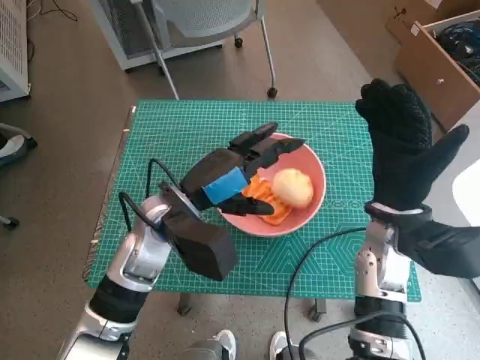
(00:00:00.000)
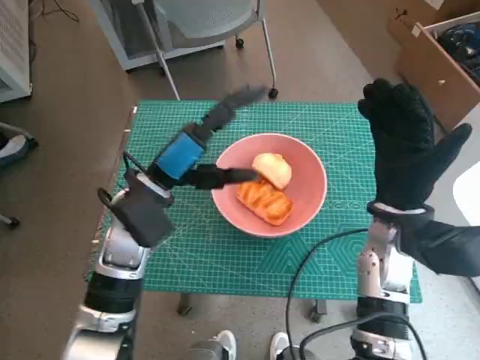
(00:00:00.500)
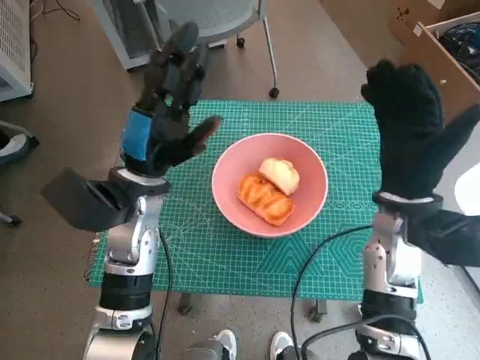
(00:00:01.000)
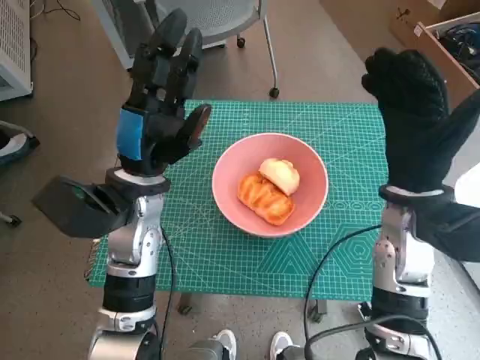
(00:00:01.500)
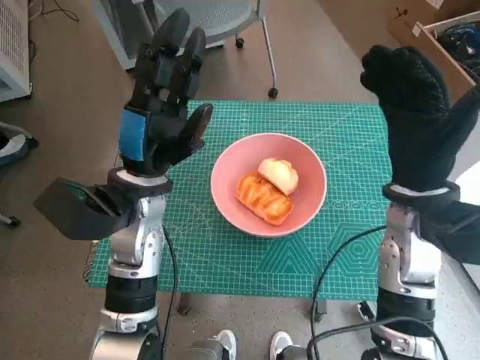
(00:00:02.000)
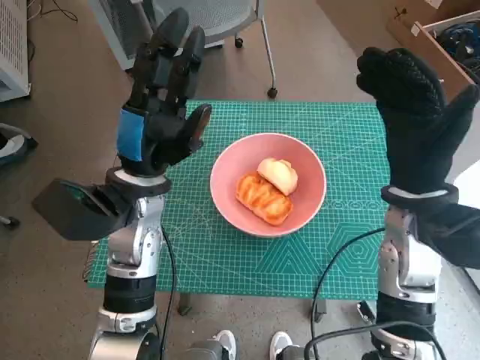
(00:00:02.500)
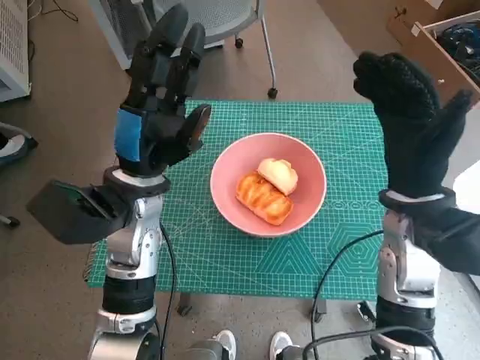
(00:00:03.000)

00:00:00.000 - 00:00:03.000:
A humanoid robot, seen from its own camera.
00:00:01.500 - 00:00:03.000: The hands move only a little.

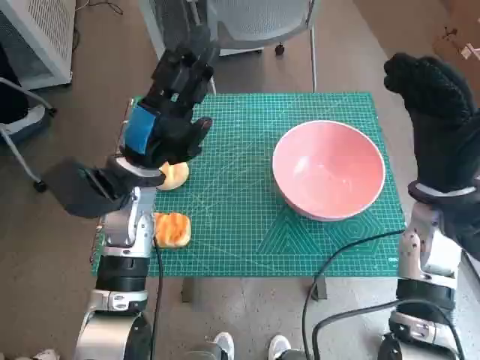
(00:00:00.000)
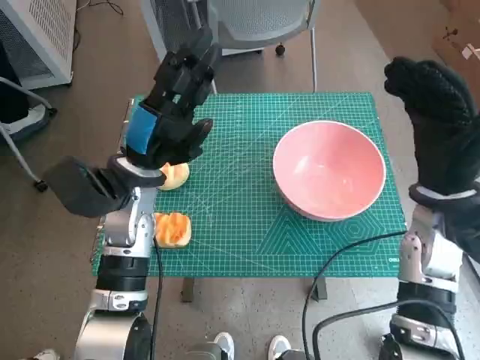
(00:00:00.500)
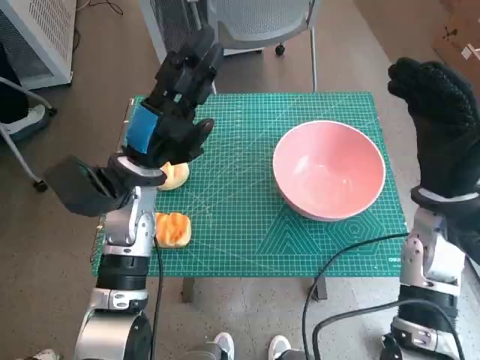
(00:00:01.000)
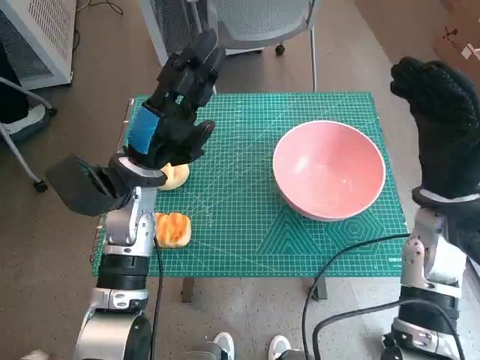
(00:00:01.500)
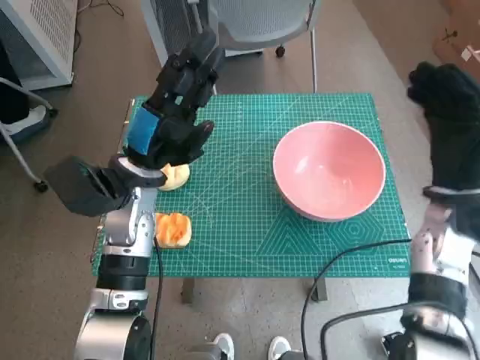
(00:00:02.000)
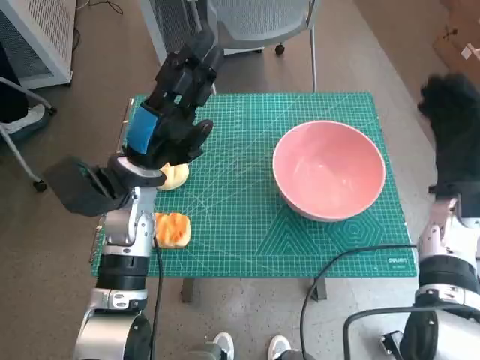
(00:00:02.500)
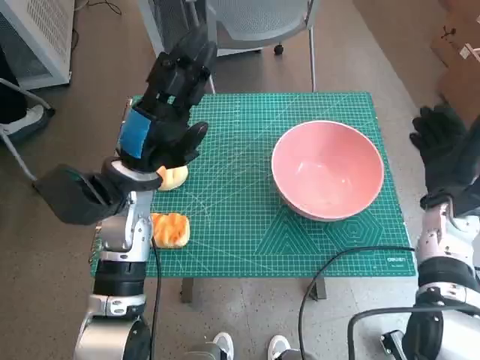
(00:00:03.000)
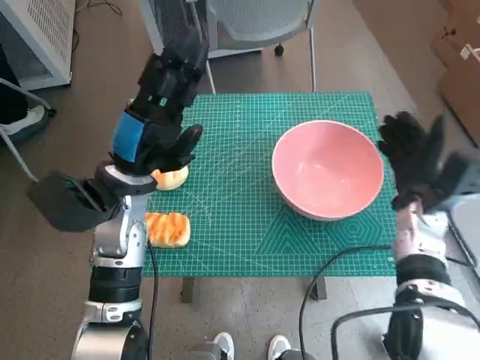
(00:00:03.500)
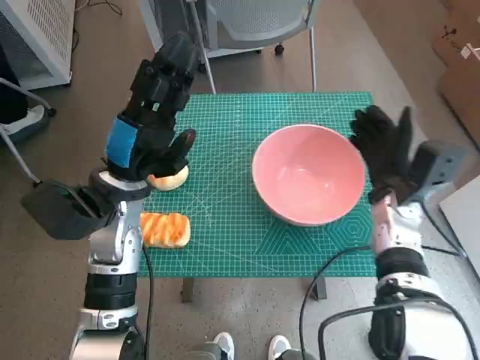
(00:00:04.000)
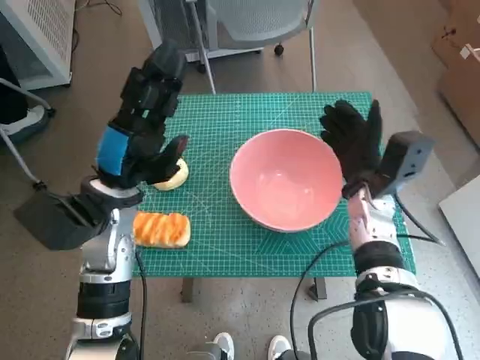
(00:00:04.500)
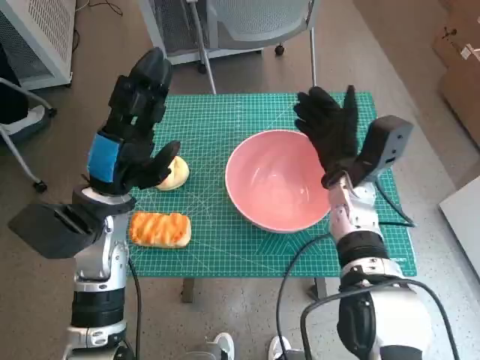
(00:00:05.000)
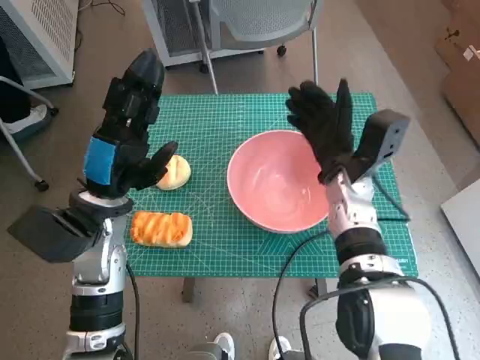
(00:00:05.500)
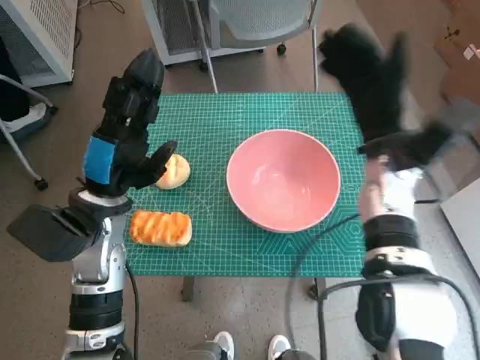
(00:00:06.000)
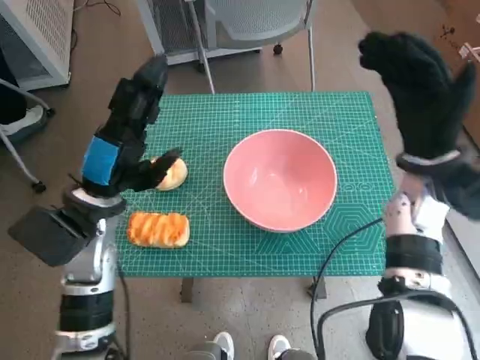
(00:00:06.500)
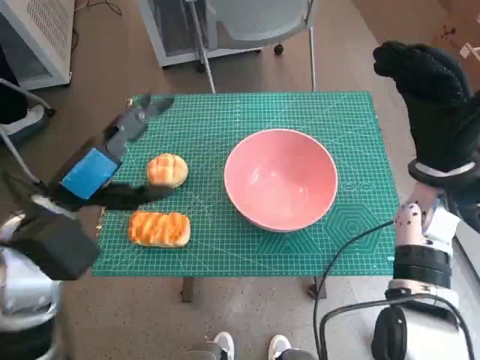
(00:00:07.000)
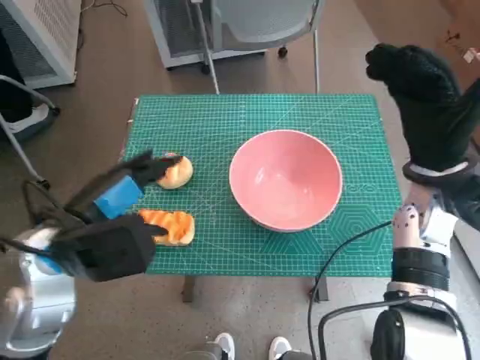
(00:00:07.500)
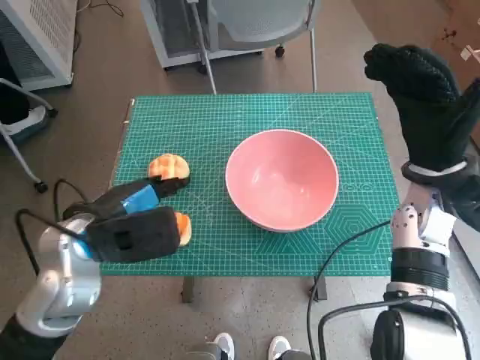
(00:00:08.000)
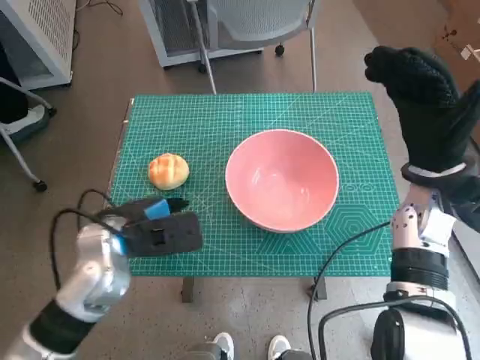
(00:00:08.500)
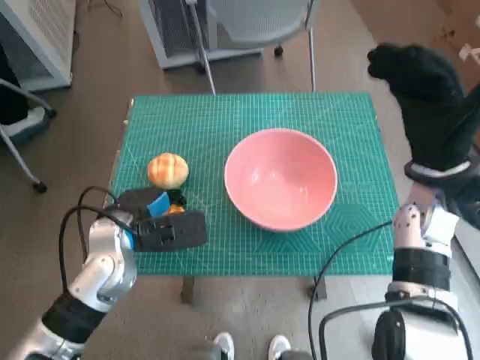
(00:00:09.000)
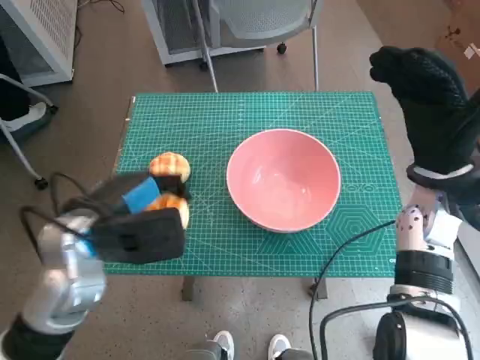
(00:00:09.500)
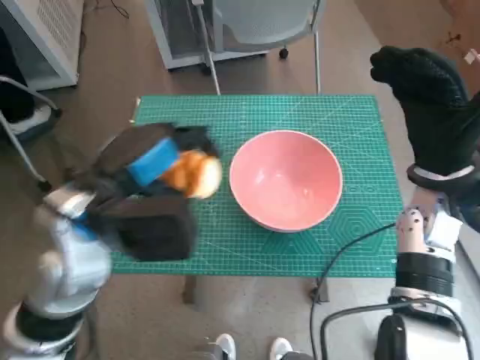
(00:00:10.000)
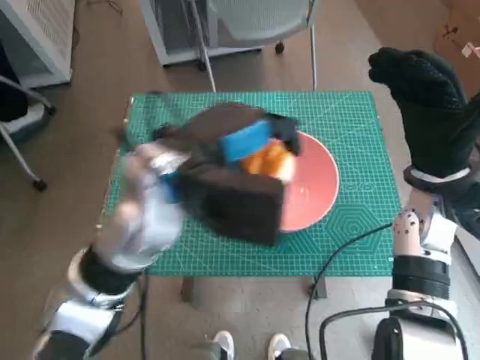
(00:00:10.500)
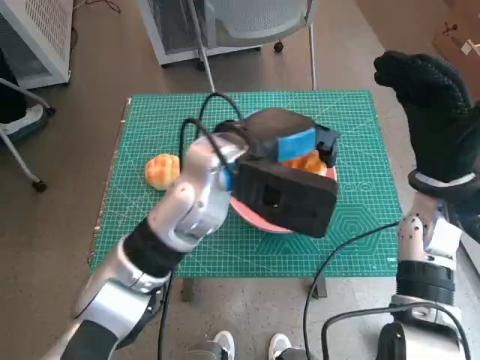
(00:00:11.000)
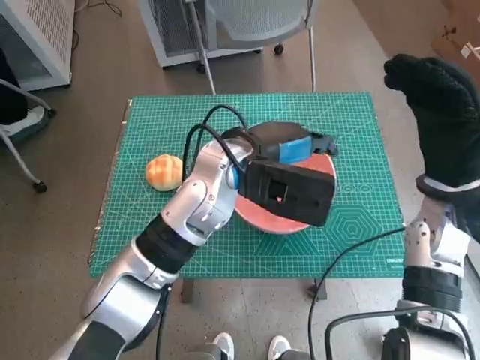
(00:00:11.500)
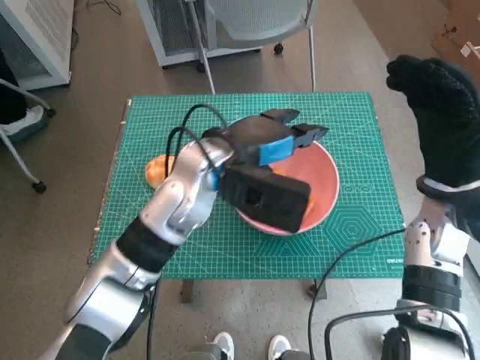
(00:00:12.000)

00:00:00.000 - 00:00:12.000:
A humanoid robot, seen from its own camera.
Step, 00:00:00.000 - 00:00:04.500: Move the pink bowl to the center of table with right hand.
Step, 00:00:05.000 - 00:00:08.500: Grasp the long bread with left hand.
Step, 00:00:09.000 - 00:00:11.500: Place the long bread in pink bowl with left hand.
00:00:02.000 - 00:00:04.000: The right hand goes approximately 5 cm downward.
00:00:04.000 - 00:00:06.000: The right hand is displaced upward by some 5 cm.
00:00:06.000 - 00:00:08.000: The right hand goes about 5 cm to the right.
00:00:08.000 - 00:00:10.000: The left hand moves upward, roughly 5 cm.
00:00:10.000 - 00:00:12.000: The left hand moves to the right and forward, roughly 15 cm.

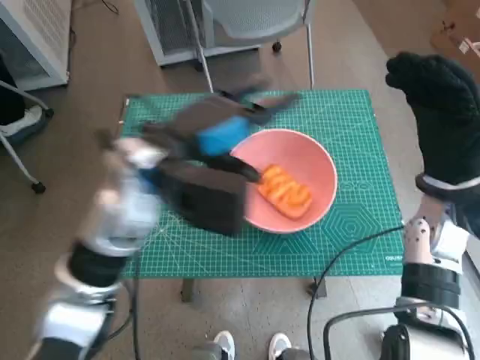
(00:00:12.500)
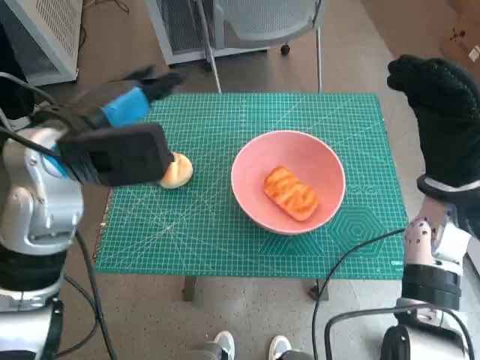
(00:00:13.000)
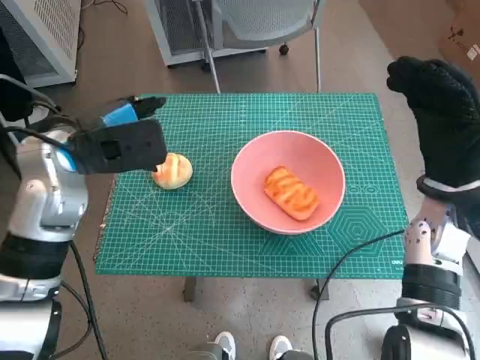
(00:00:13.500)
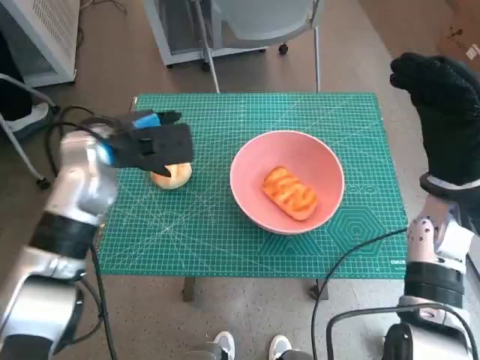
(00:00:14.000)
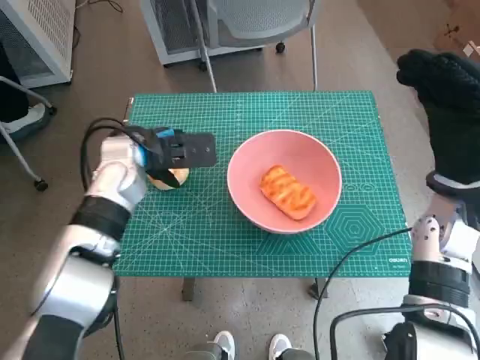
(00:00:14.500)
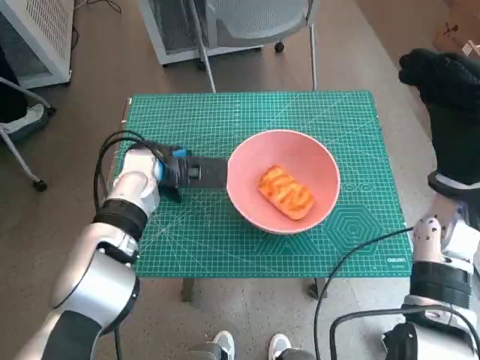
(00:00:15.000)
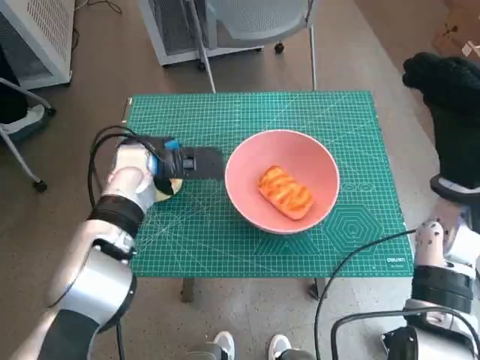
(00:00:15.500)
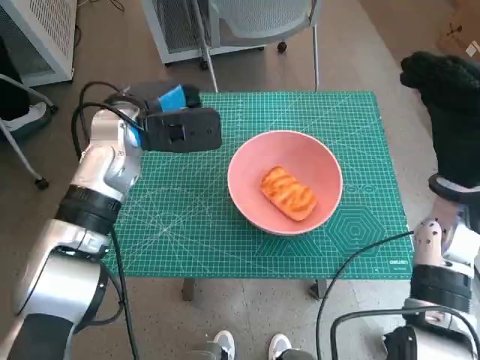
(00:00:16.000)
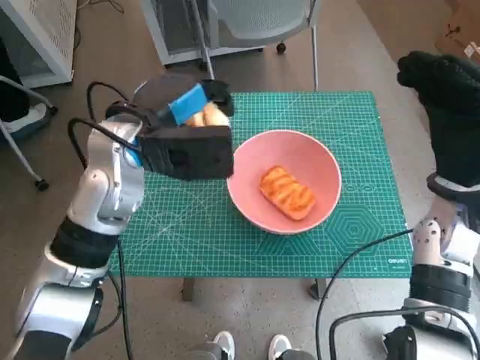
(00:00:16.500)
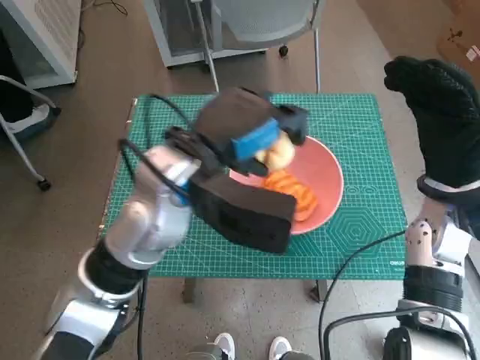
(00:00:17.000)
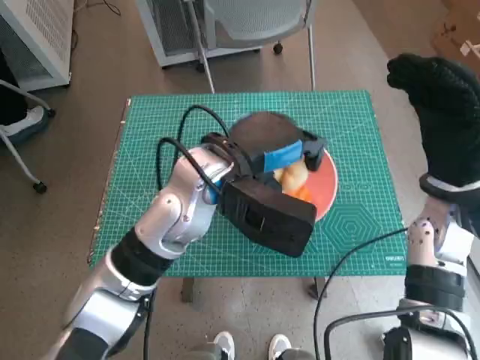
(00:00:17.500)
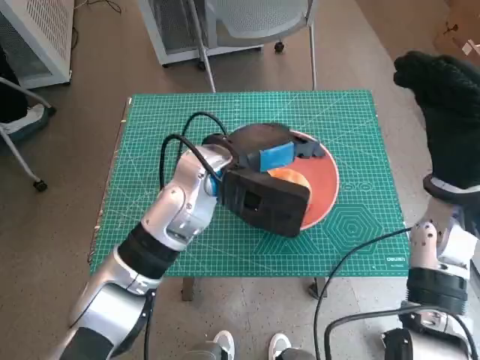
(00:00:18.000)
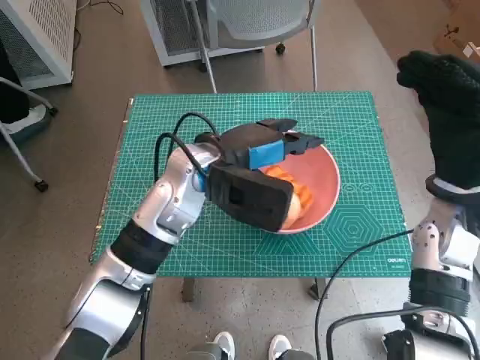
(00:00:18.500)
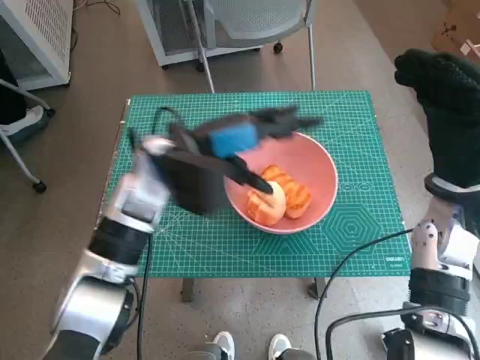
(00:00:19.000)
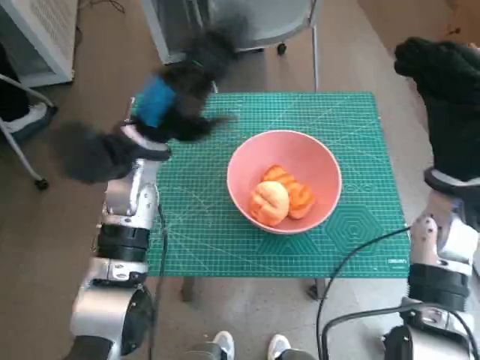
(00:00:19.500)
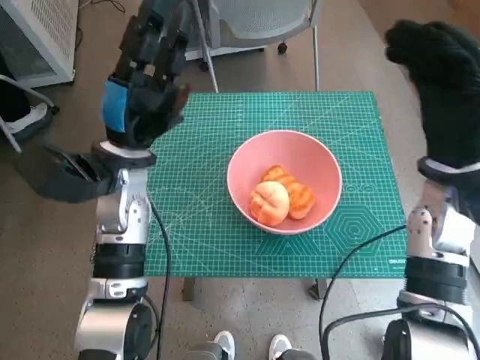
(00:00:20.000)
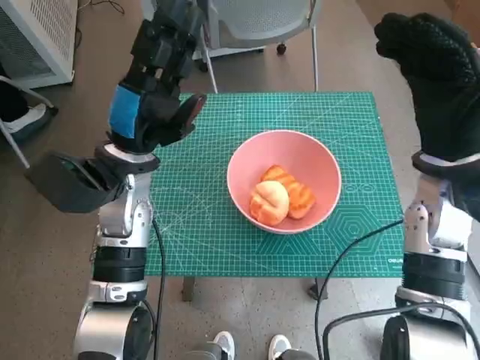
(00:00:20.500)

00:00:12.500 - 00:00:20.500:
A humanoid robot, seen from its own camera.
Step, 00:00:12.500 - 00:00:15.000: Grasp the round bread with left hand.
Step, 00:00:15.500 - 00:00:18.000: Place the round bread in pink bowl with left hand.
00:00:12.500 - 00:00:14.500: The left hand is displaced downward, to the left and forward by roughly 15 cm.
00:00:14.500 - 00:00:16.500: The left hand moves upward, about 5 cm.
00:00:16.500 - 00:00:18.500: The left hand shifts approximately 5 cm to the right.
00:00:18.500 - 00:00:20.500: The left hand is displaced to the left by some 10 cm.
